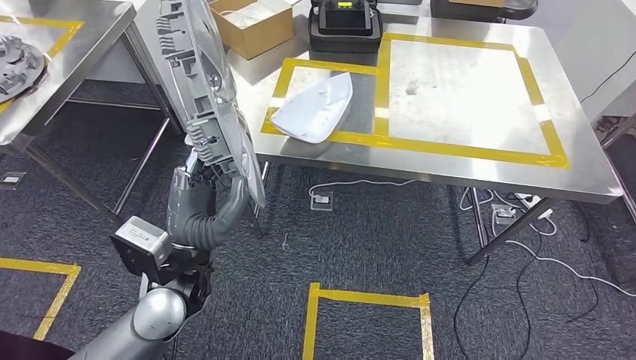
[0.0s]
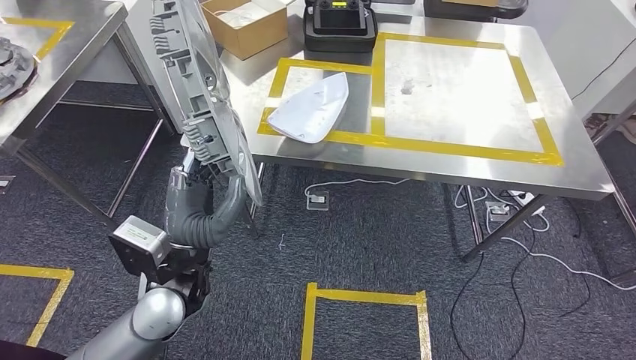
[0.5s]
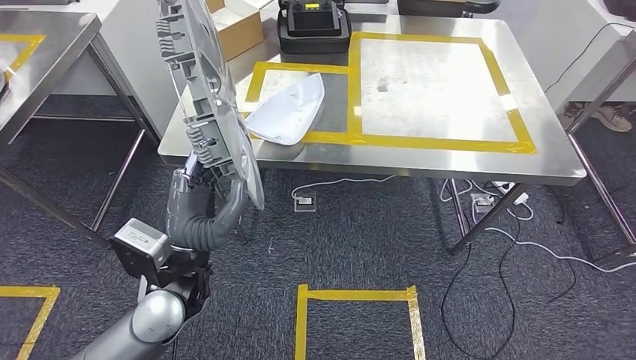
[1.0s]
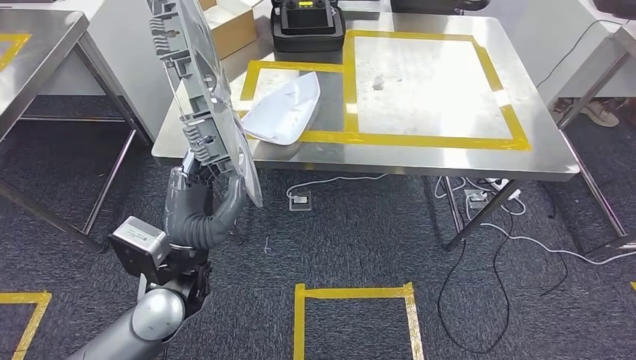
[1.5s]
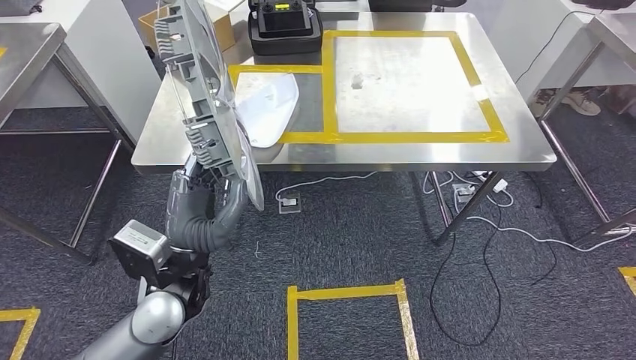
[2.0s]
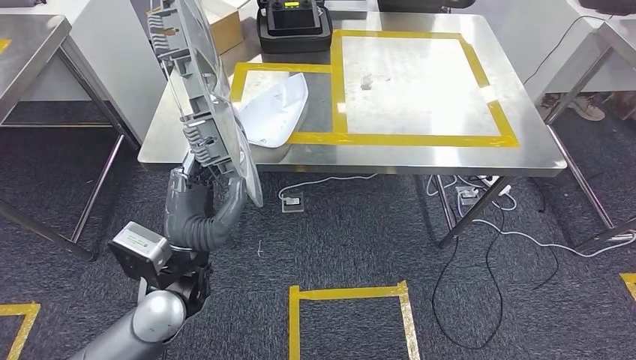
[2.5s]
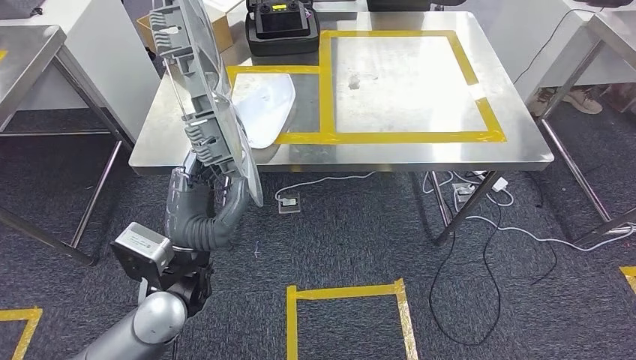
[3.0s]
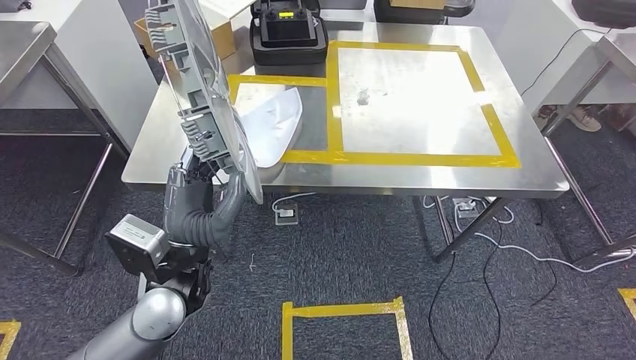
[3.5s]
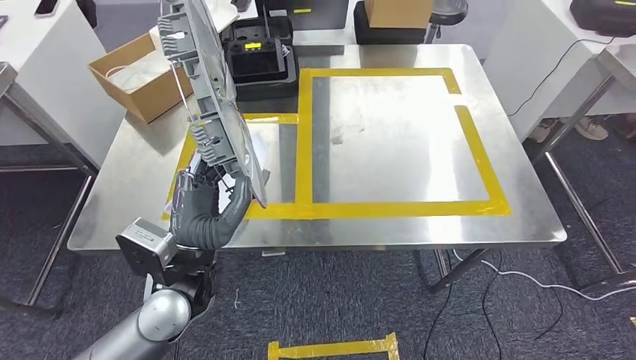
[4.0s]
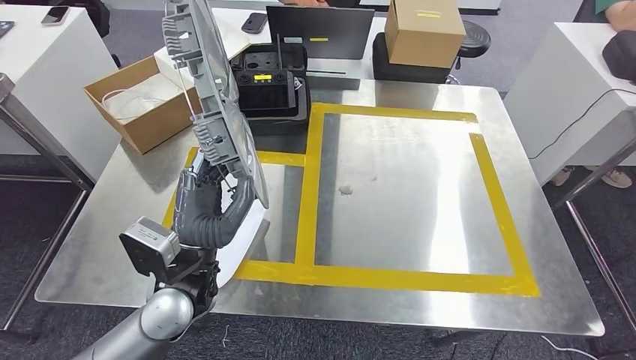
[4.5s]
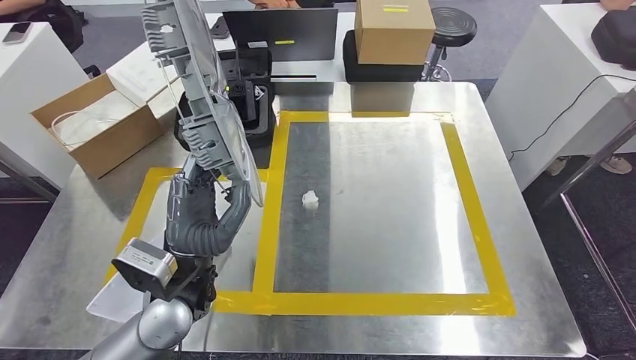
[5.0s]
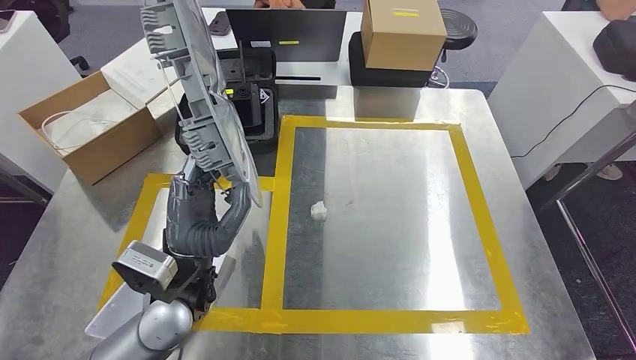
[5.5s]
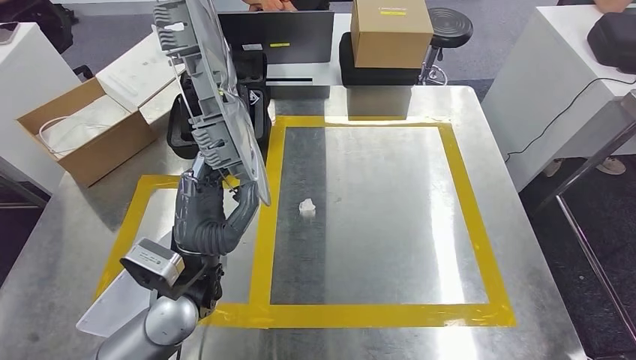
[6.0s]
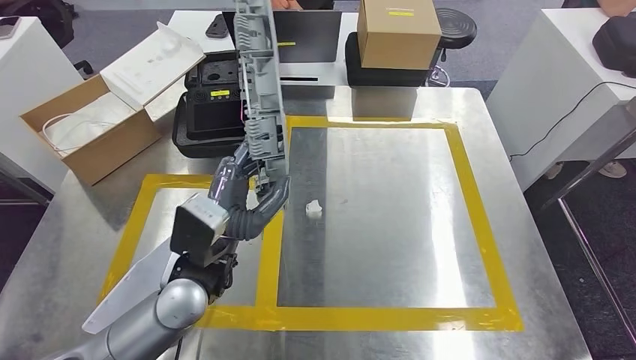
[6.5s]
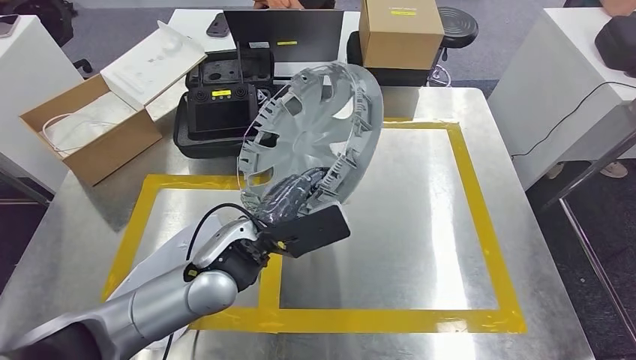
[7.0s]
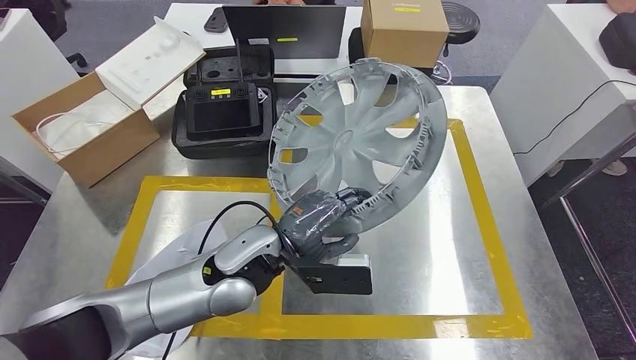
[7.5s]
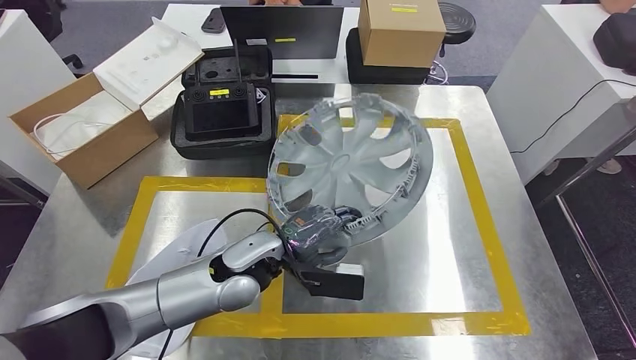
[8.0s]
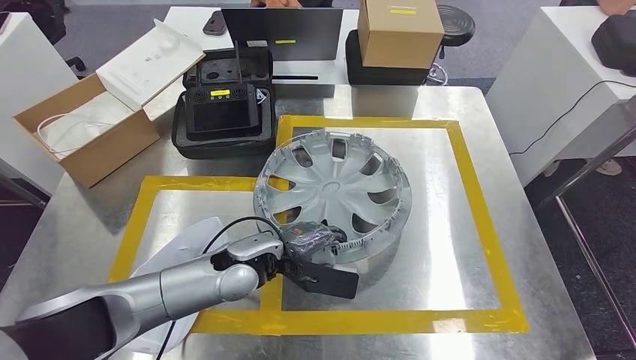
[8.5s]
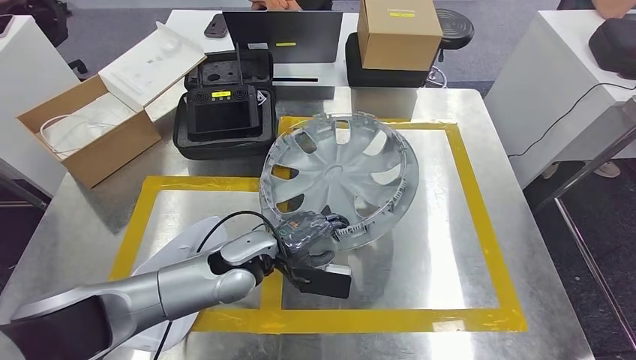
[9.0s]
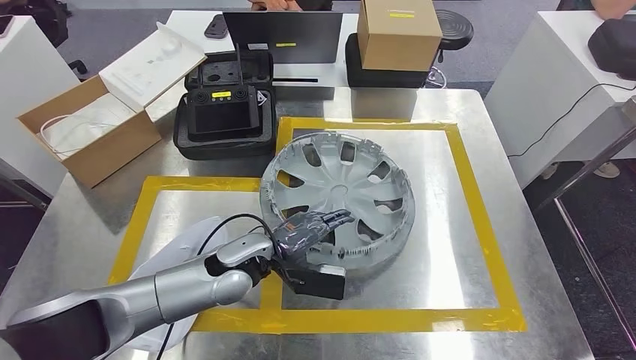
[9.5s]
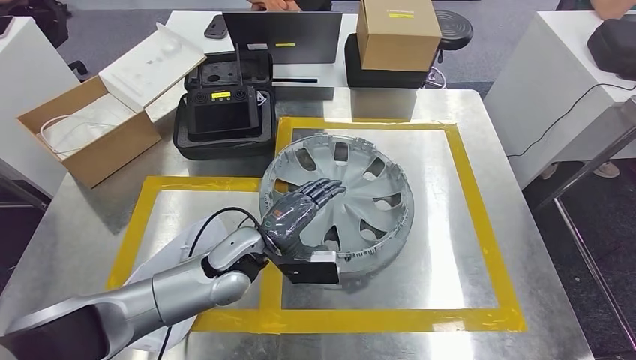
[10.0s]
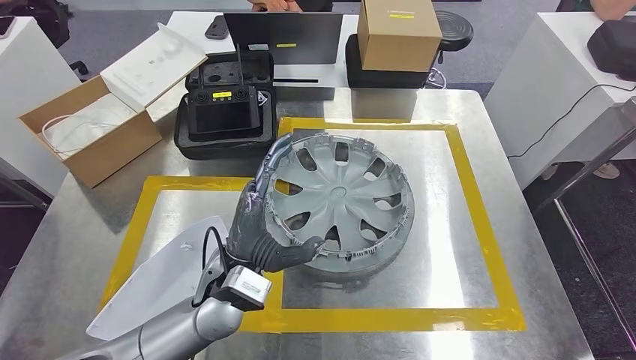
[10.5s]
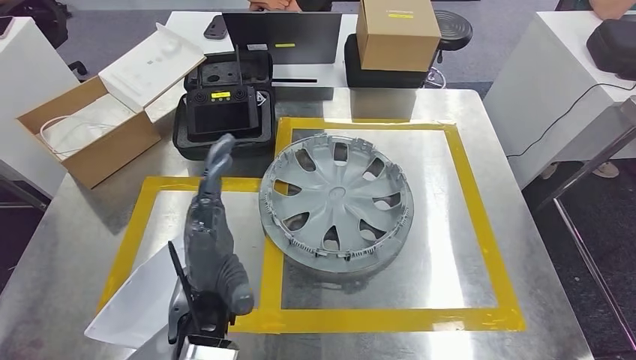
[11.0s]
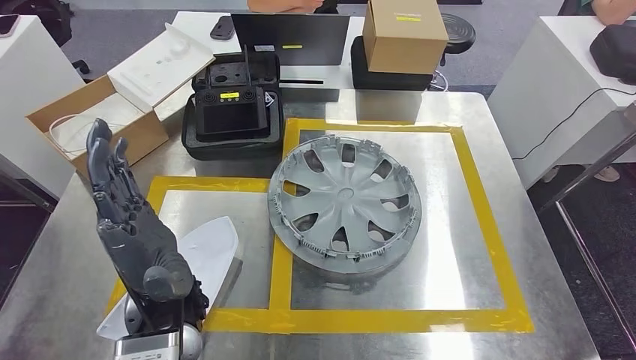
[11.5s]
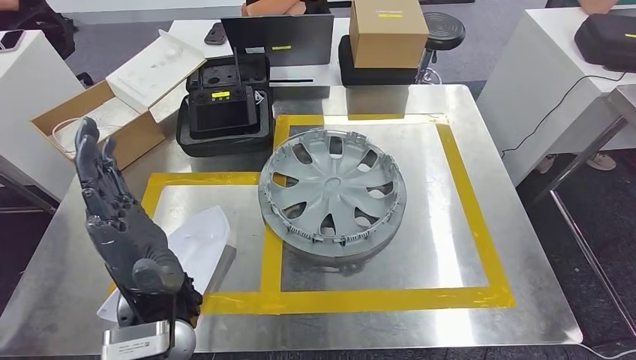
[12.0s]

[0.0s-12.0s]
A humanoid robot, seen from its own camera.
Step, 0.0s to 11.5s: Insert the small component into the corresponding slot on the workbench.

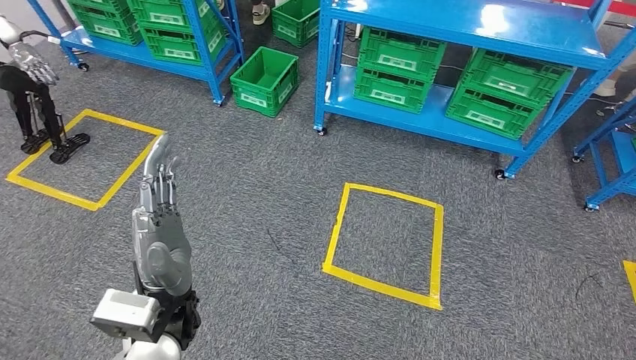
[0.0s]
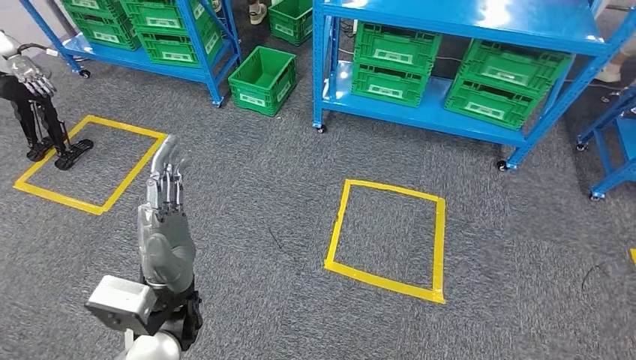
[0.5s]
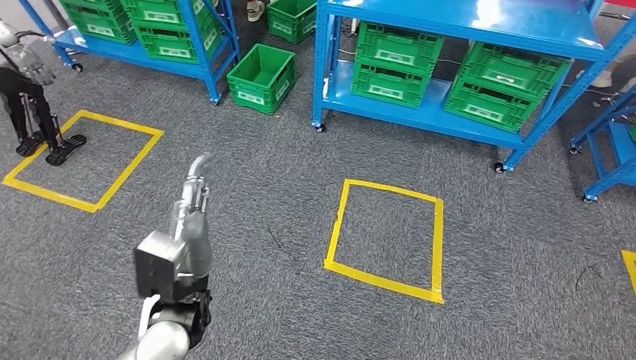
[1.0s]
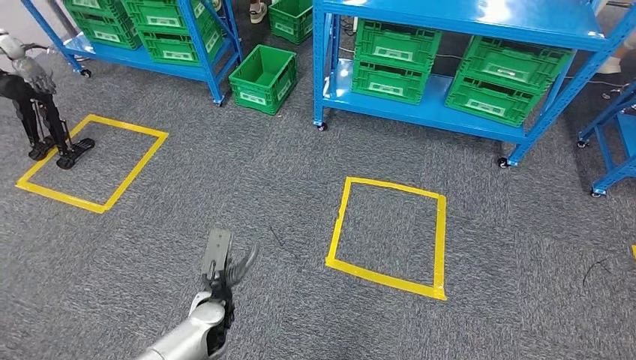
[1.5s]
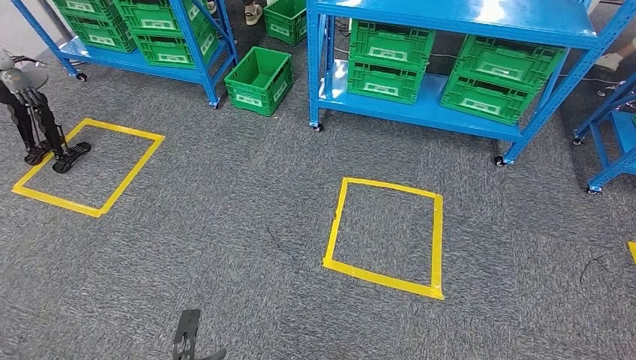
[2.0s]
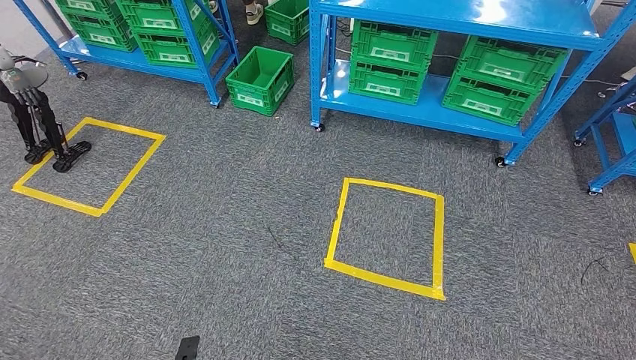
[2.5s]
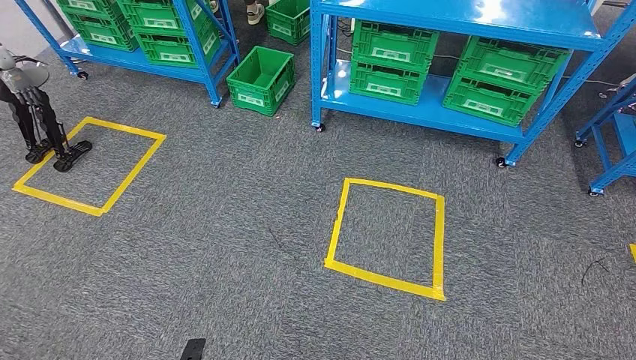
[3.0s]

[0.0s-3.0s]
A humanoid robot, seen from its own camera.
Step, 0.0s to 3.0s: Return to the initial position at the workbench.
1.5s to 3.0s: The left hand shifts roughly 20 cm backward and downward.

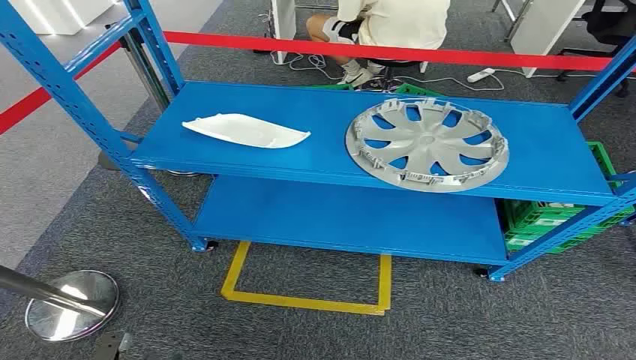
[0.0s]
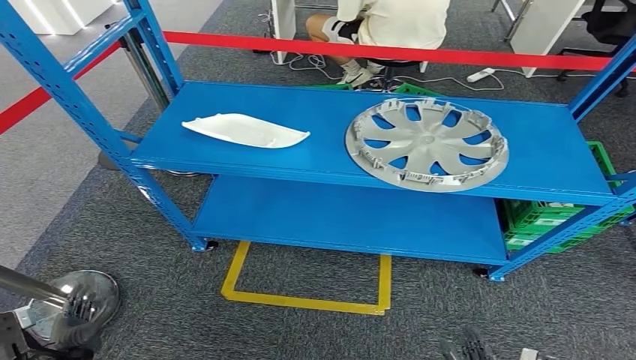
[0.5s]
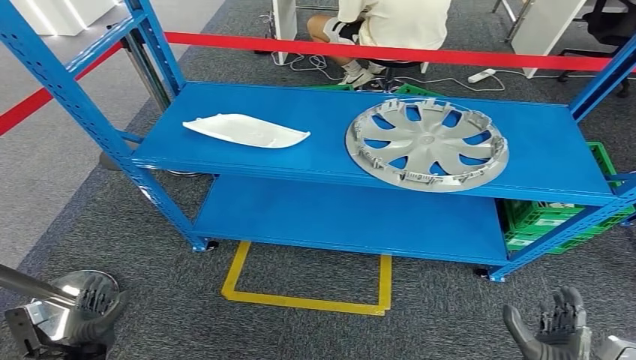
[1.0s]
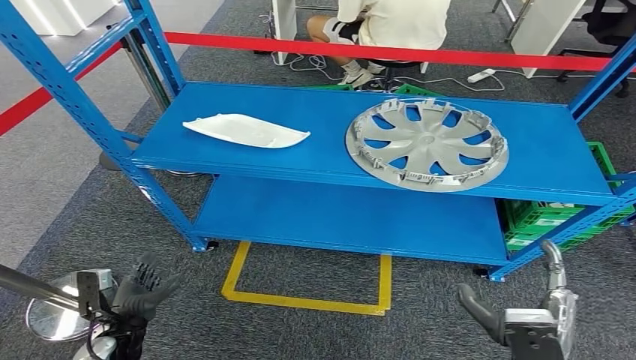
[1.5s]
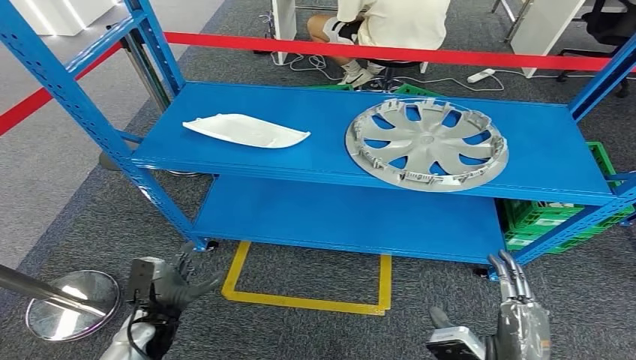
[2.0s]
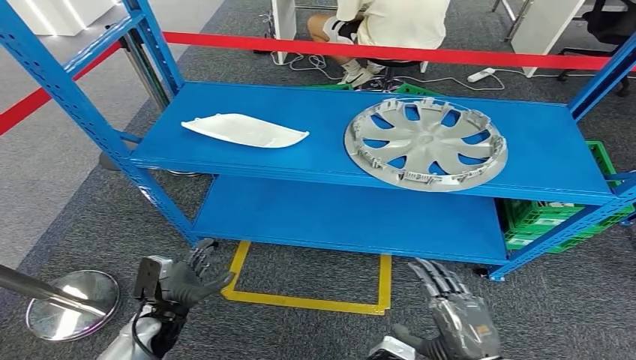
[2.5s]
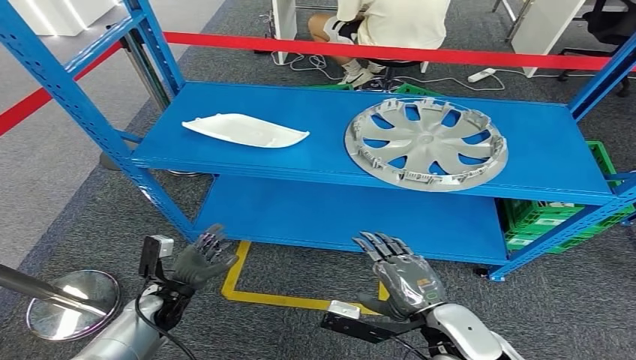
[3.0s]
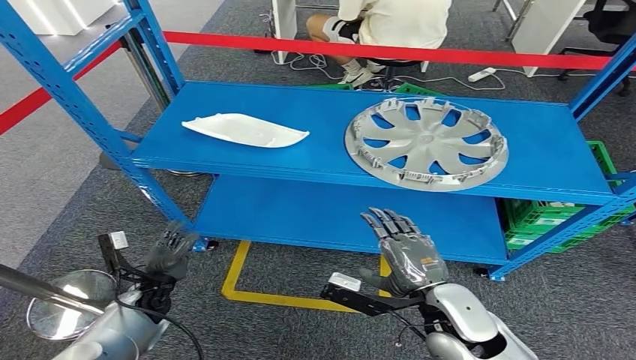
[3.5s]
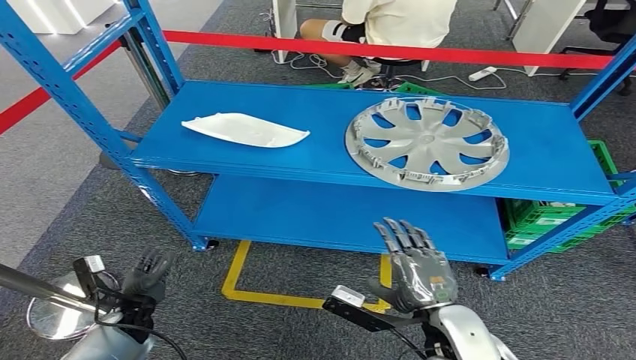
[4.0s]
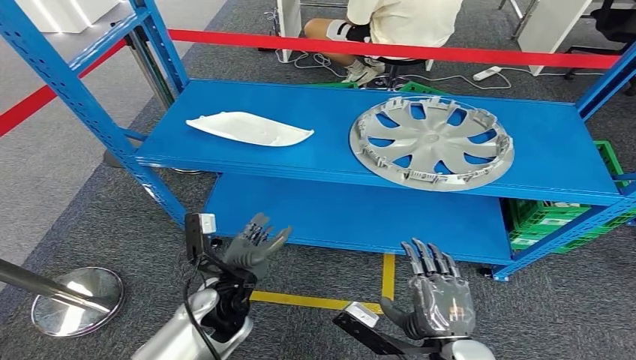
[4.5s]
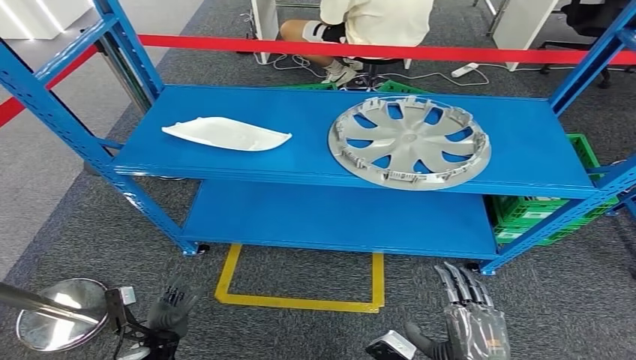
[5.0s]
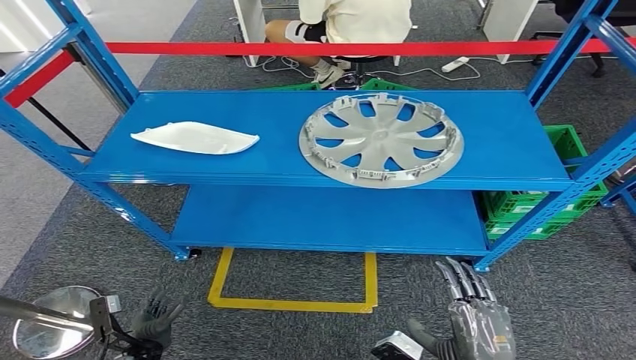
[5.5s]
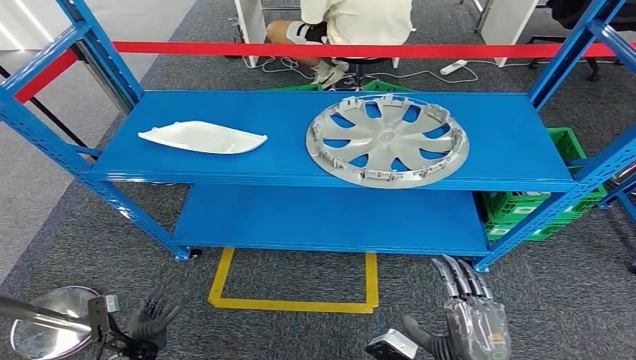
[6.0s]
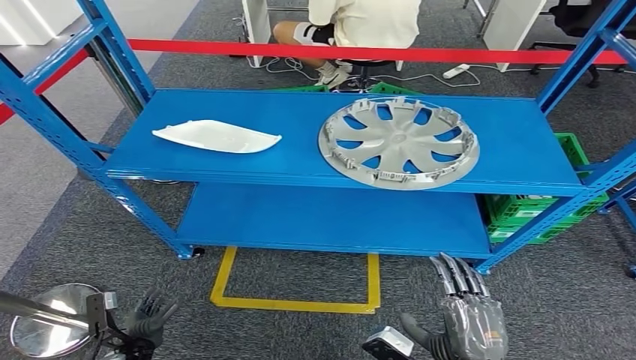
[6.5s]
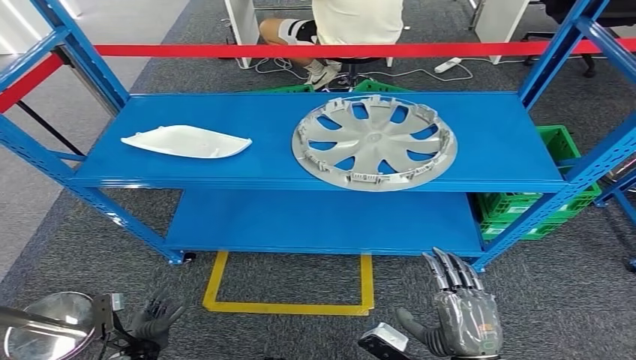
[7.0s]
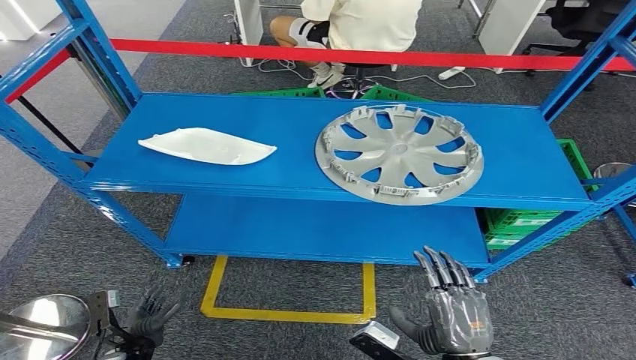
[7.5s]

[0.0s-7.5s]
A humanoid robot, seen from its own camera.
2.0s to 4.0s: The left hand is displaced to the left by approximately 5 cm. The right hand goes approximately 10 cm forward and to the left.
